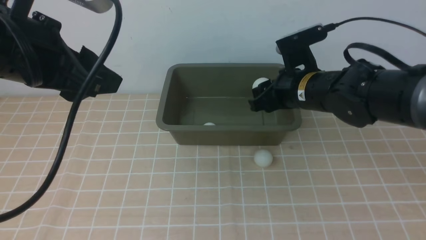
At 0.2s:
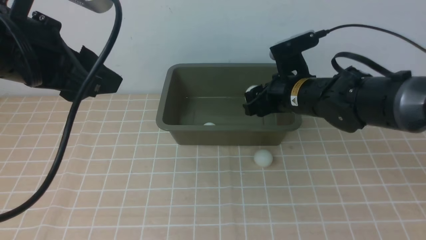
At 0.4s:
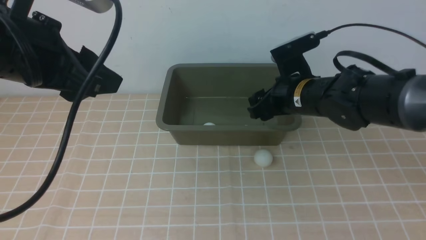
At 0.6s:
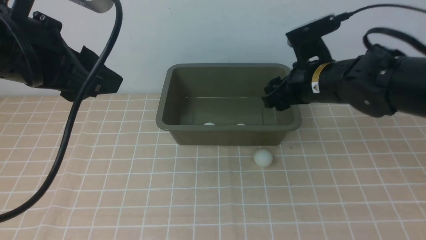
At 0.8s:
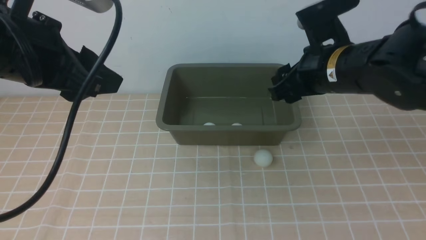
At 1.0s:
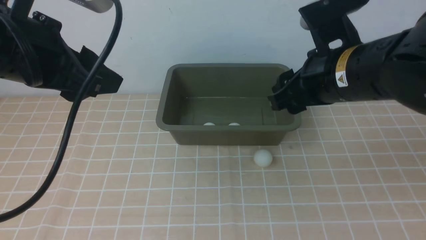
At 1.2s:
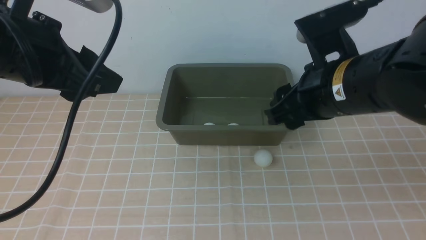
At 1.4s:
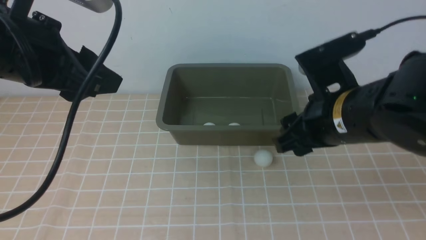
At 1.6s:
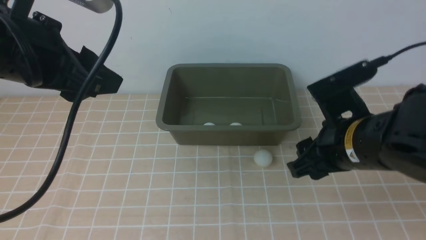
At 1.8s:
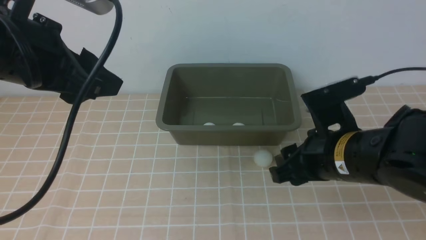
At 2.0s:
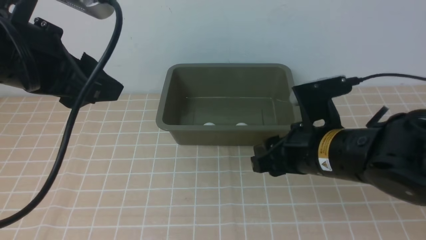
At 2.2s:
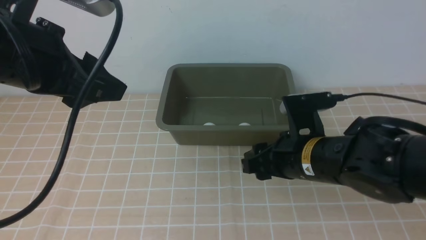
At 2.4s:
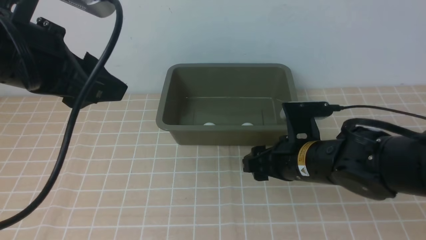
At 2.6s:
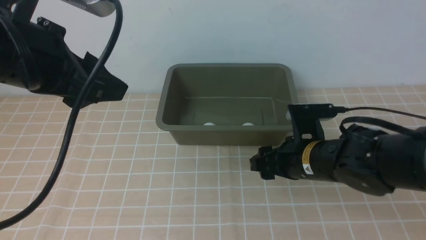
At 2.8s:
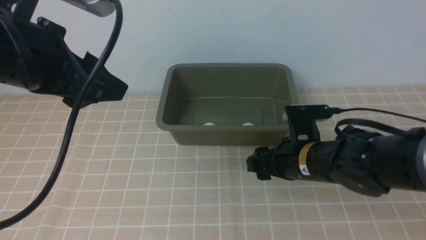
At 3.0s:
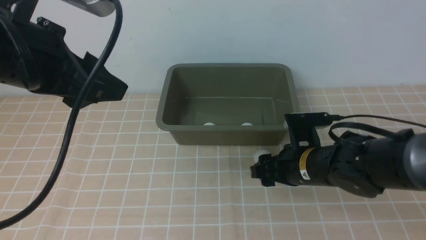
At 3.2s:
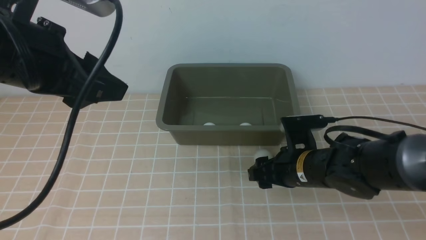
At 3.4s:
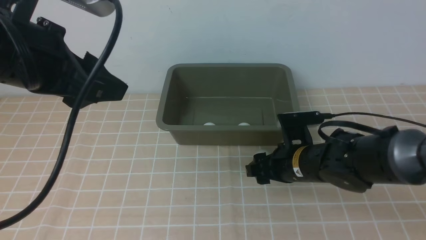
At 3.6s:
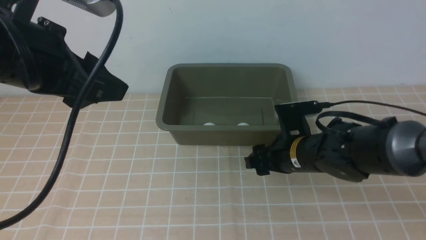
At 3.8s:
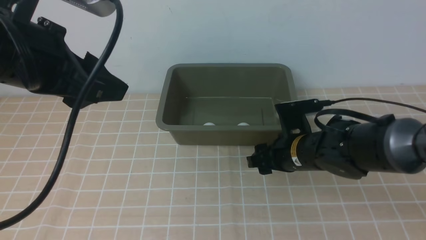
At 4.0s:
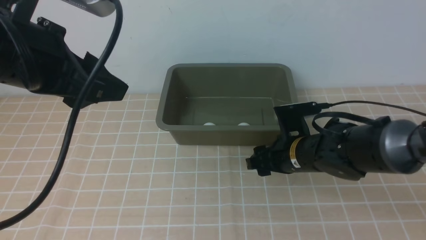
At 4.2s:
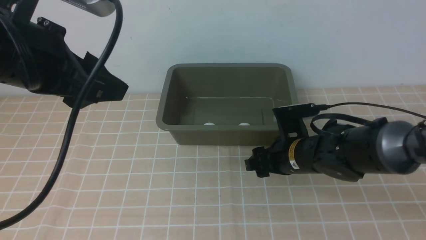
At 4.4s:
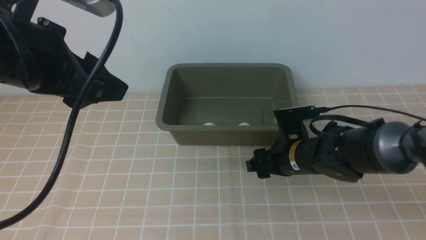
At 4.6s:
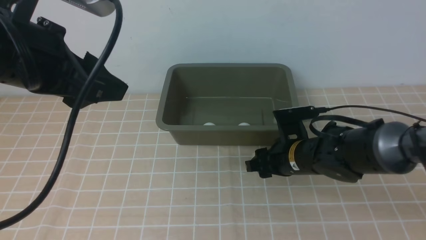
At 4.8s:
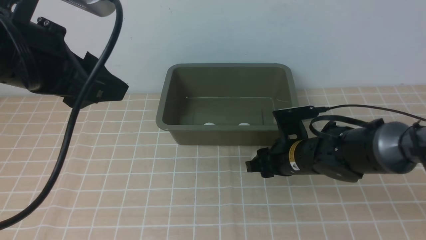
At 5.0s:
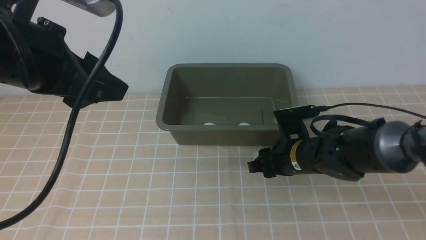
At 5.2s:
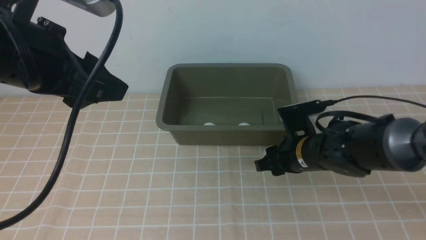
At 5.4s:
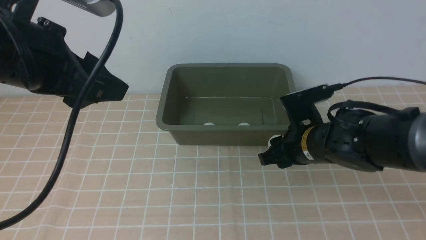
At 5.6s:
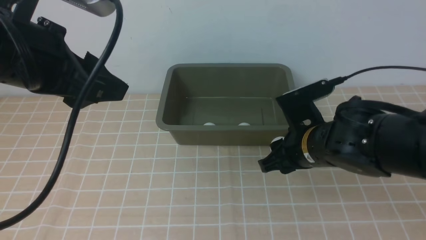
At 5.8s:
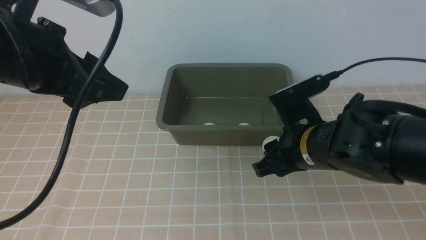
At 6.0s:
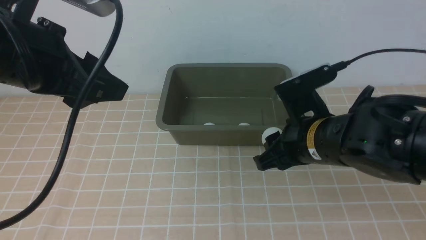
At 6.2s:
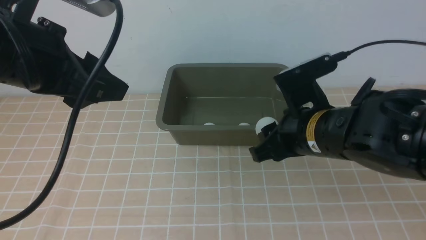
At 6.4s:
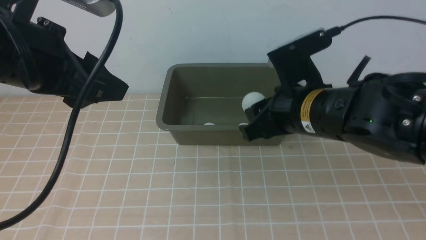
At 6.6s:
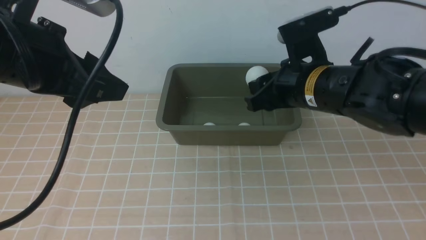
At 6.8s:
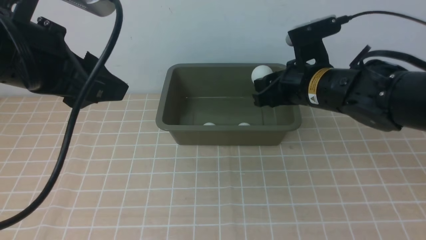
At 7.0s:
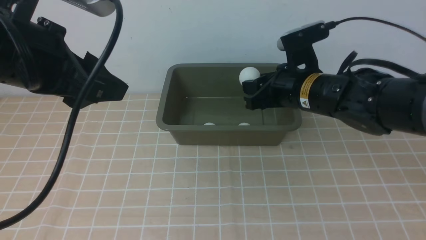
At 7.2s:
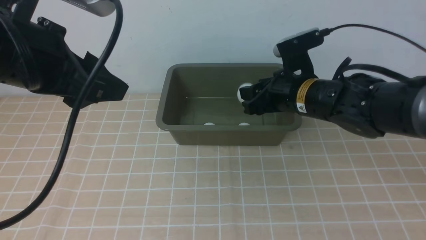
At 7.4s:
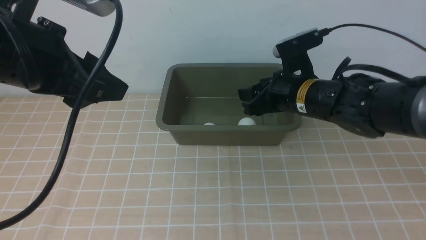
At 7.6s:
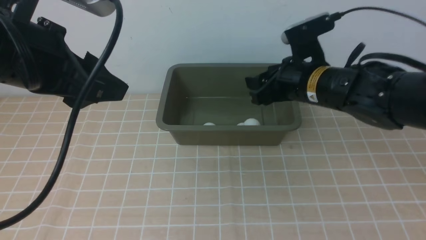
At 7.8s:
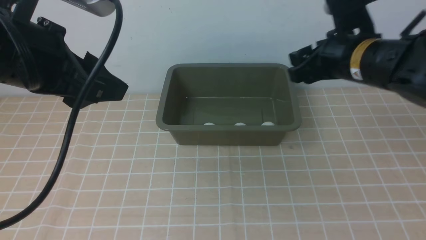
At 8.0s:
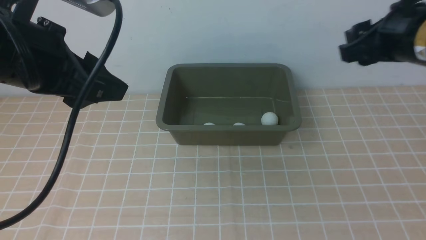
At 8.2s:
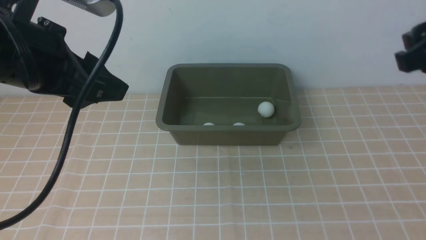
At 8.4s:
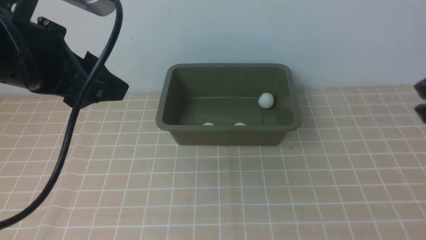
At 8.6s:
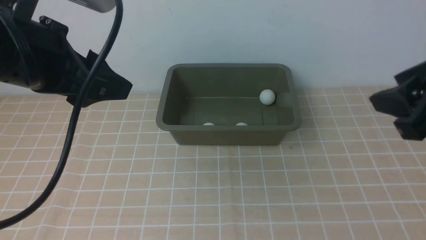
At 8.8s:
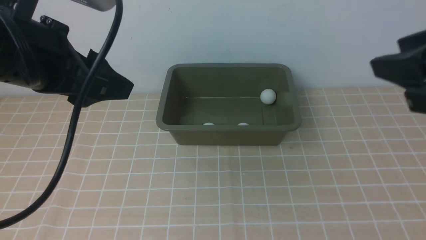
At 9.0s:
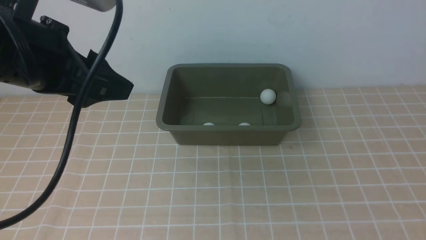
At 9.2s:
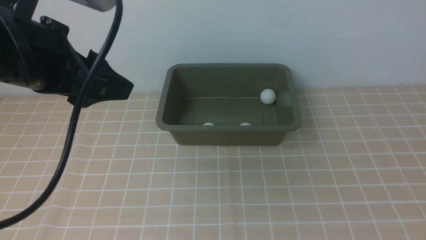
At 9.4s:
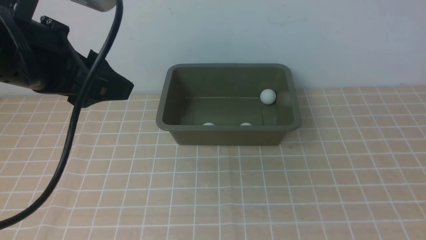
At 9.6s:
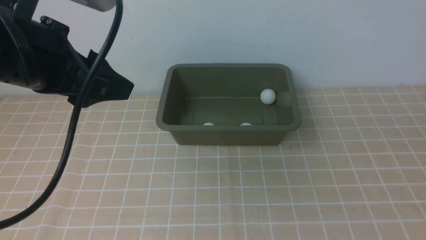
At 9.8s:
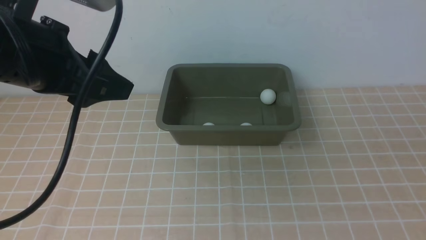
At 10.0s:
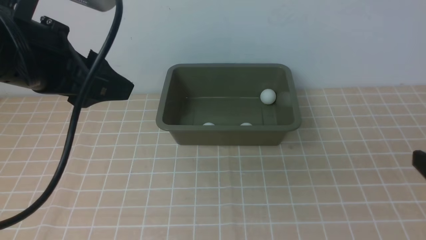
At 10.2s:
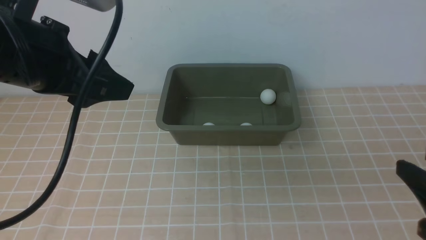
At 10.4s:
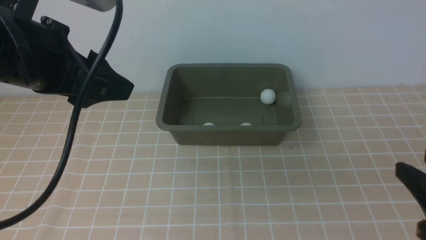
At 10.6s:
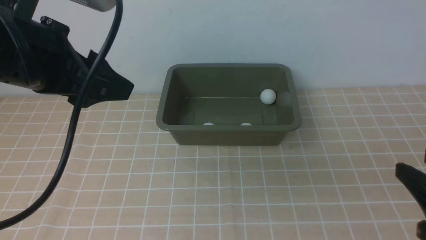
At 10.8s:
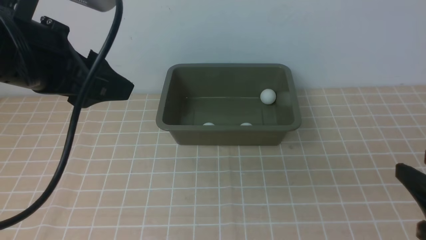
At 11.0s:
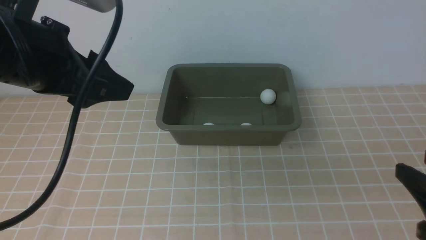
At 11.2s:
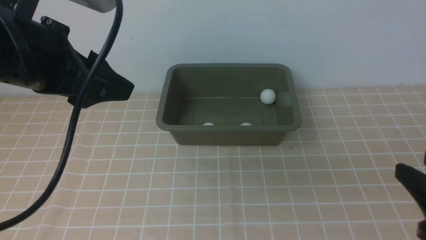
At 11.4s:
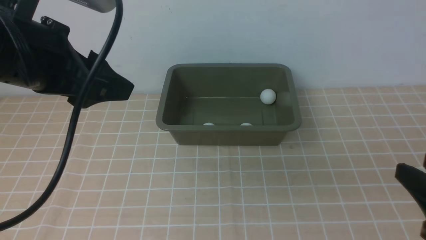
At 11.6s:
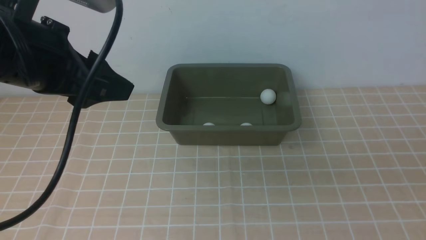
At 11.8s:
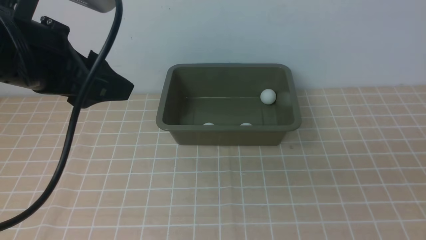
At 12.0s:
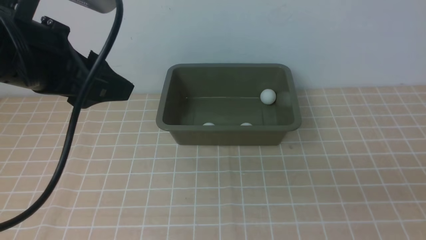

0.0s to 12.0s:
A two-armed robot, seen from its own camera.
Step, 0.8s to 5.6s: use the right arm to clamp the table tennis ball closest to it.
Step, 5.8s to 7.6s: use the right arm to put the table tennis ball into the box.
0.0s to 1.6s: The right gripper goes approximately 15 cm backward.
1.6s to 3.0s: The right gripper moves downward and forward, some 15 cm.
3.0s to 4.4s: There are only small adjustments of the grippers.
4.4s to 6.0s: The right gripper shifts some 15 cm upward and backward, and closes its fingers.
6.0s to 7.6s: The right gripper shifts some 10 cm forward, and opens.
7.6s to 9.0s: The right gripper moves backward, upward and to the right, approximately 30 cm, and closes up.
9.0s to 10.4s: The right gripper heads downward, covering about 15 cm.
10.4s to 12.0s: The right gripper moves about 5 cm.

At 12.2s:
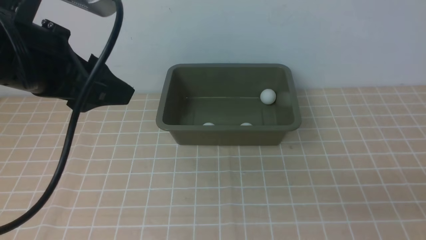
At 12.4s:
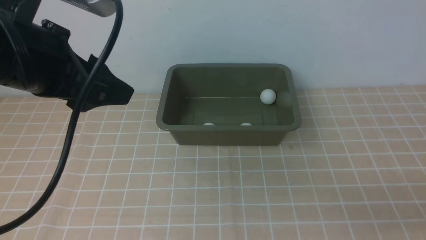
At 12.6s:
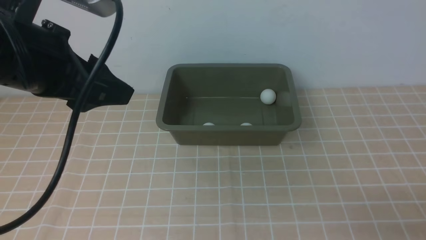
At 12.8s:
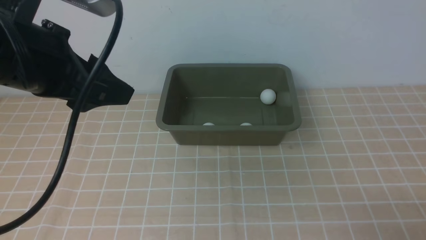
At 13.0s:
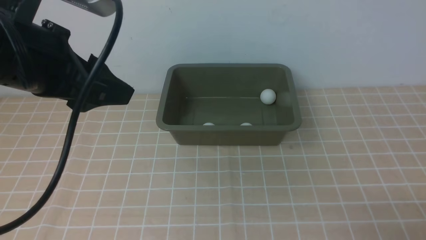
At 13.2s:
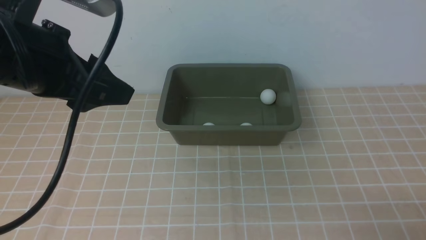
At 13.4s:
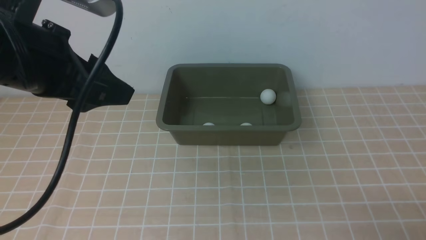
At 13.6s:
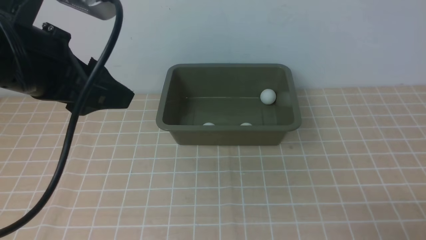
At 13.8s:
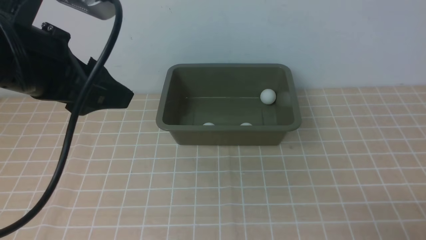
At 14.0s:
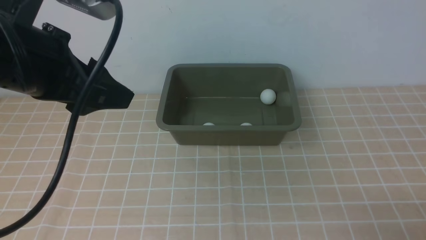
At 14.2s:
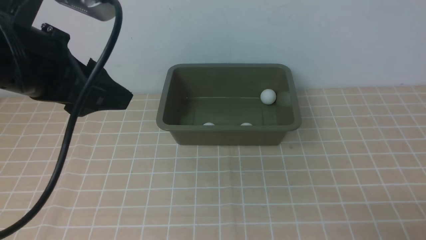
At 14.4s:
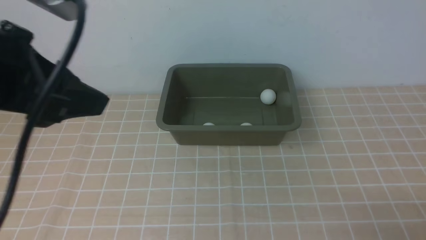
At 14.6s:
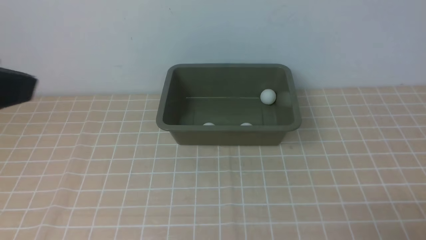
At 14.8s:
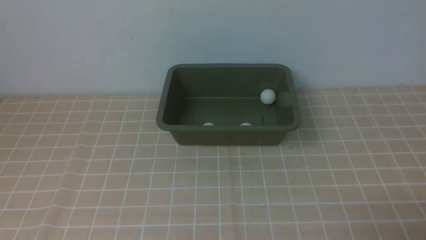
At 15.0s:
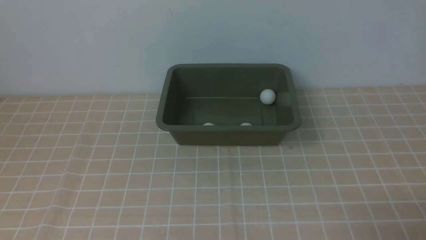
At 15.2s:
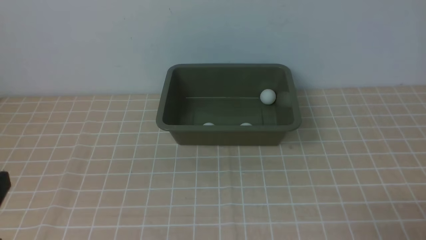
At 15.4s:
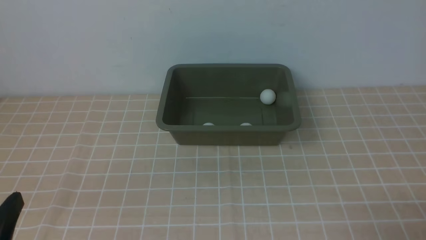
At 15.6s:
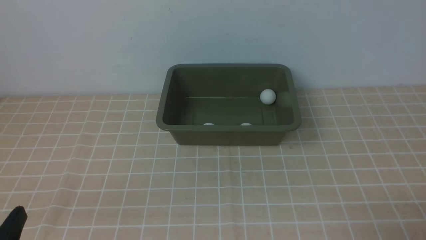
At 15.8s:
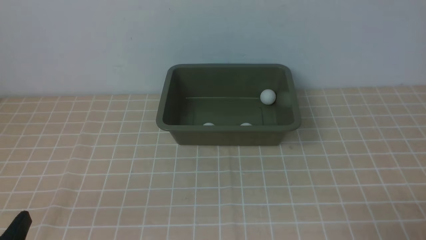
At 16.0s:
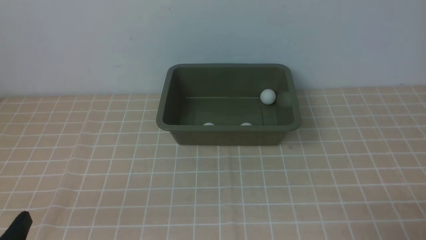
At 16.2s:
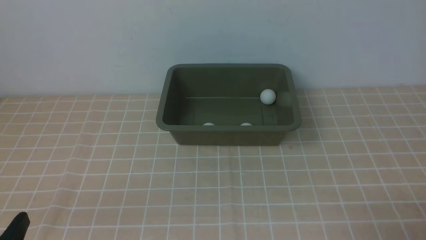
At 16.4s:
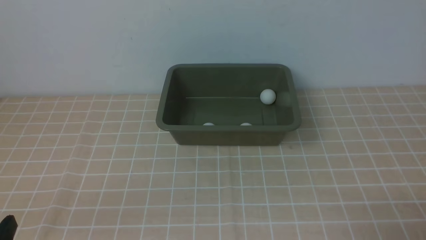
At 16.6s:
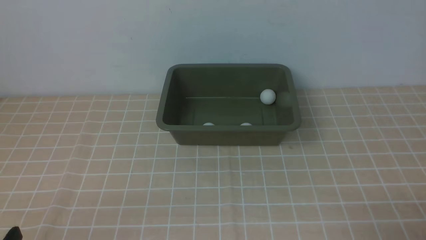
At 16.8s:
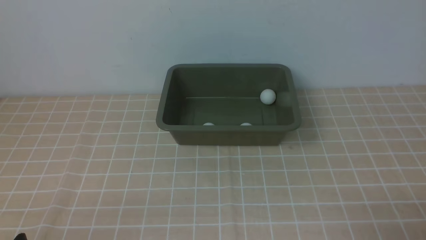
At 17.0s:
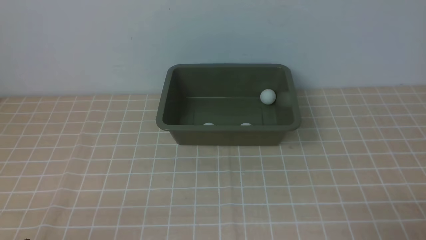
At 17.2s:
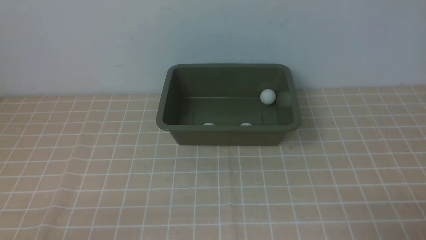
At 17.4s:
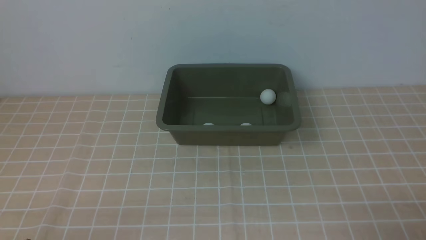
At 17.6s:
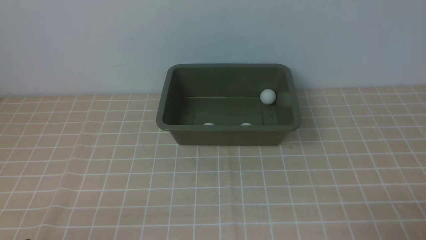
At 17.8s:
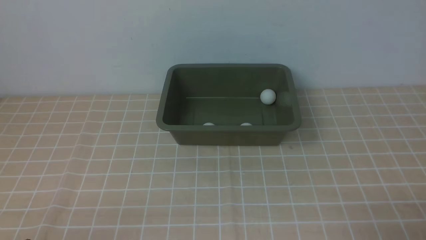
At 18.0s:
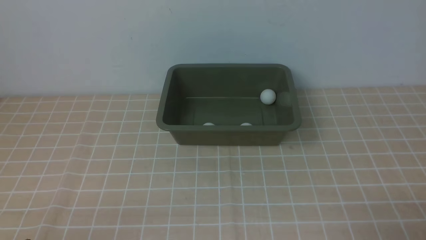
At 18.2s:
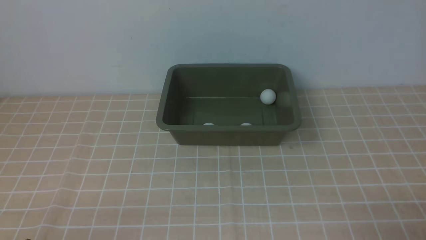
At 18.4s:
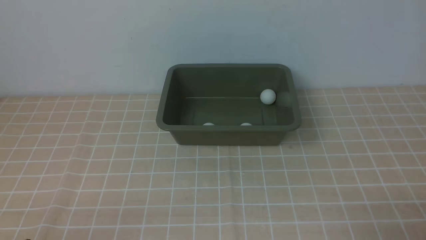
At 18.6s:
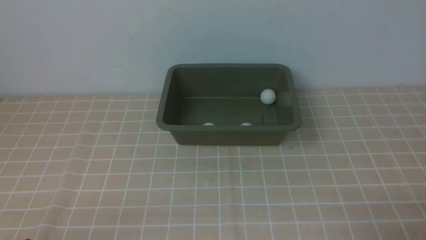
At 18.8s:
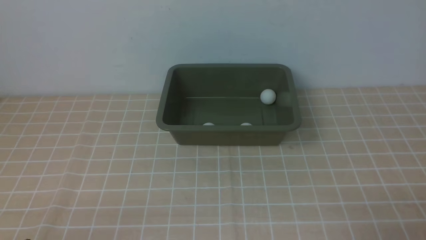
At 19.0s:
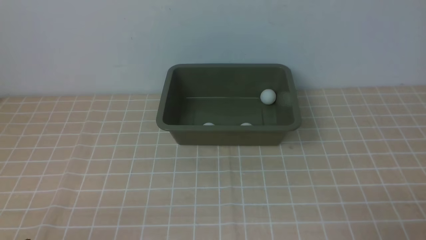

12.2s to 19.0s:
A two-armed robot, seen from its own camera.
13.6s to 15.0s: The left gripper is displaced backward by approximately 15 cm.
